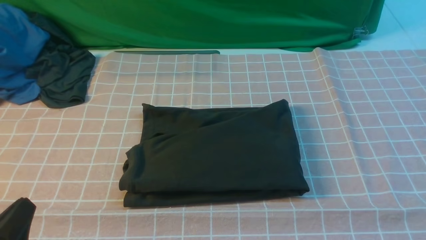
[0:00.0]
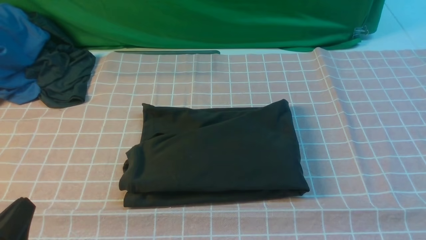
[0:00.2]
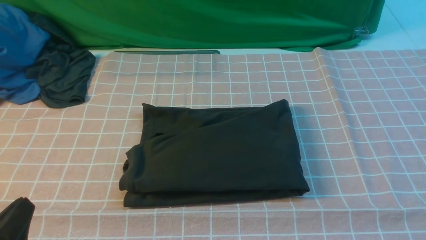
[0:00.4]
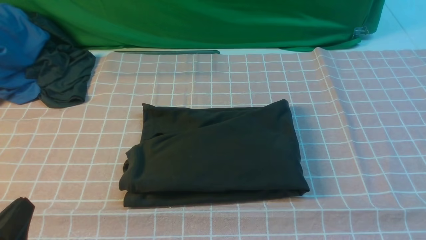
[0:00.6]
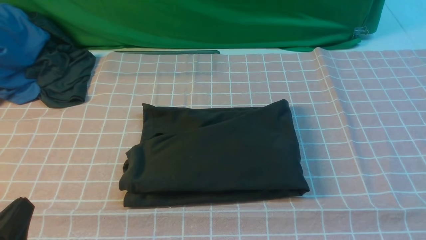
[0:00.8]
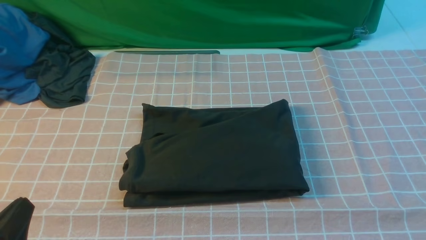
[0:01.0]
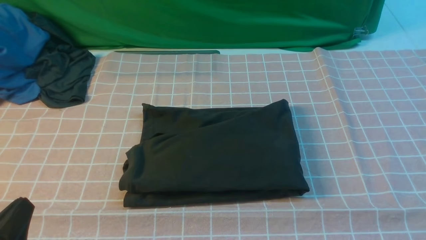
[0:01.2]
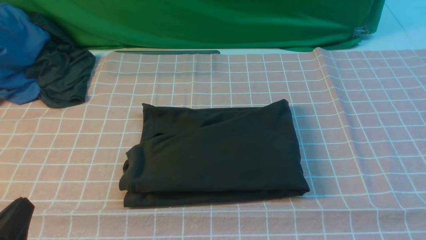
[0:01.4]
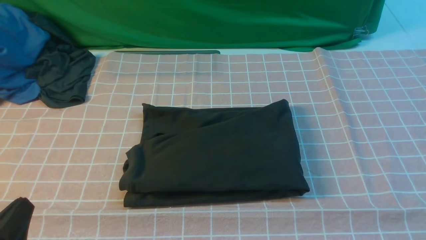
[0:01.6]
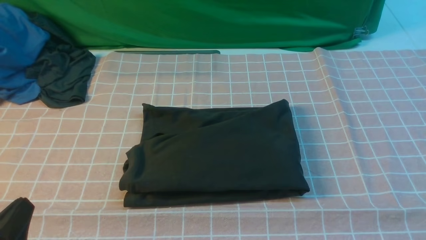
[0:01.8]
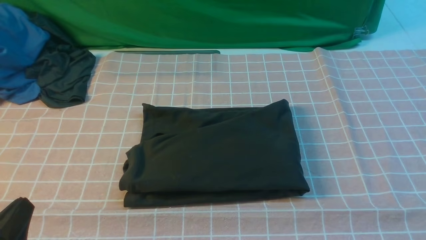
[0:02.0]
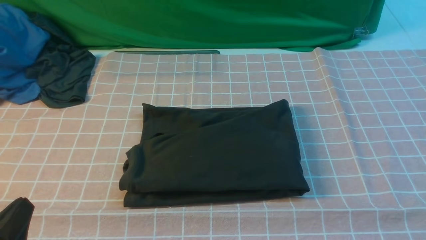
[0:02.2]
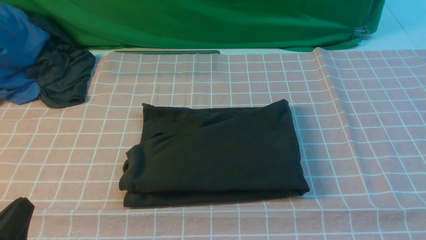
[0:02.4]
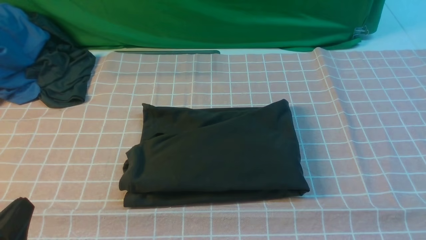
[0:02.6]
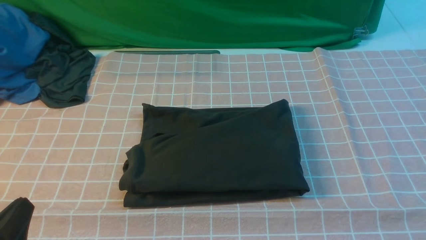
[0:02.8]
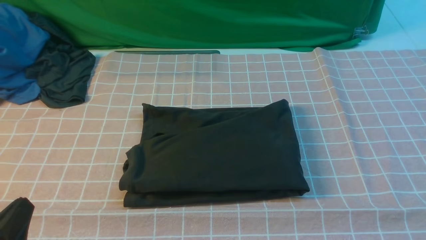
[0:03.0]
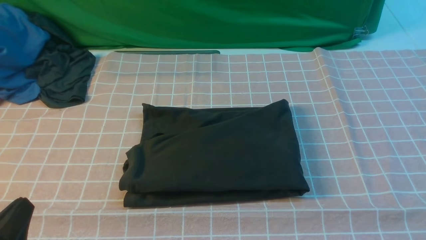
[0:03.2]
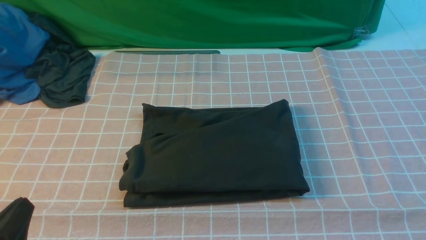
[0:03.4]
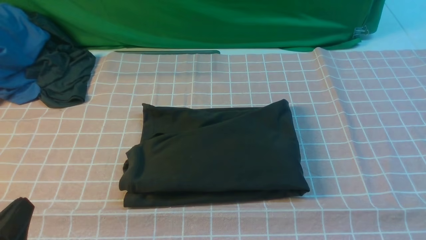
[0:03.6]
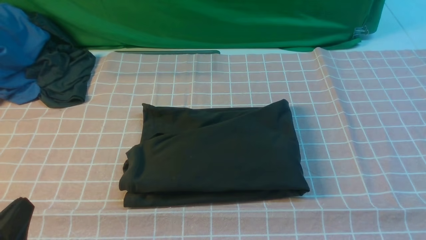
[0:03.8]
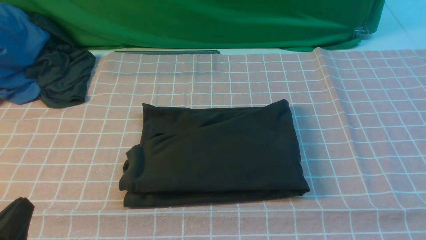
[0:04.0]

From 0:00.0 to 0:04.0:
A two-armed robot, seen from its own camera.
From 0:02.6 to 0:04.0: Both grippers stay put.
